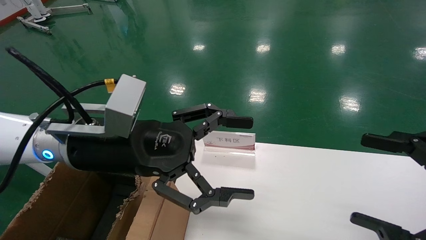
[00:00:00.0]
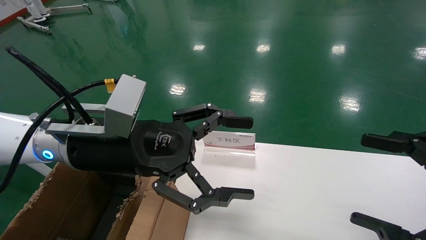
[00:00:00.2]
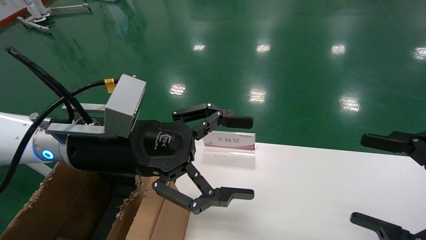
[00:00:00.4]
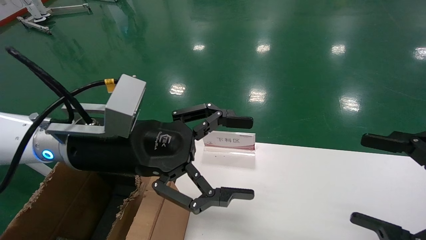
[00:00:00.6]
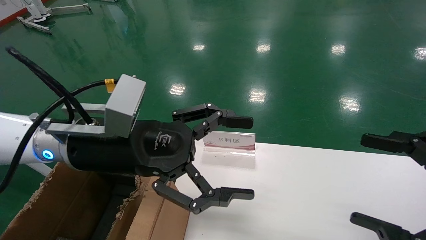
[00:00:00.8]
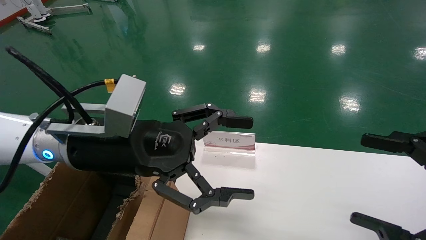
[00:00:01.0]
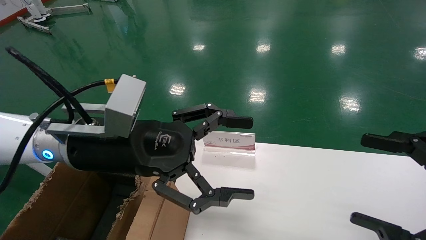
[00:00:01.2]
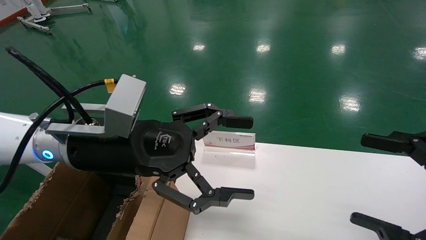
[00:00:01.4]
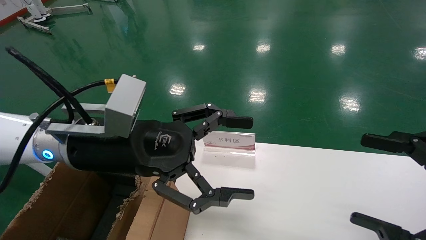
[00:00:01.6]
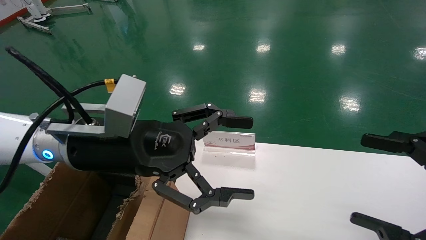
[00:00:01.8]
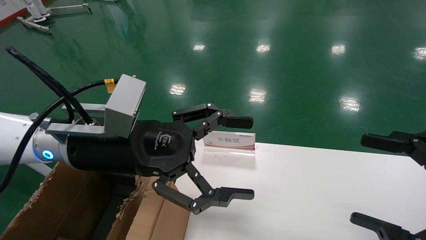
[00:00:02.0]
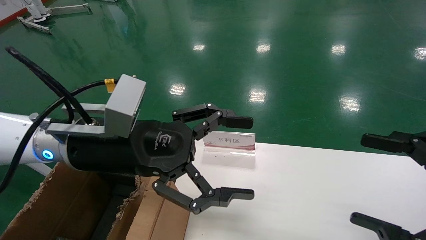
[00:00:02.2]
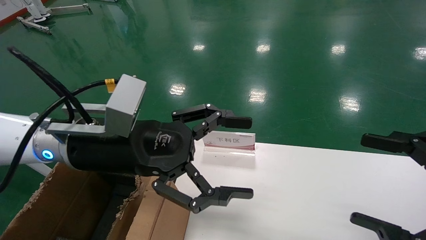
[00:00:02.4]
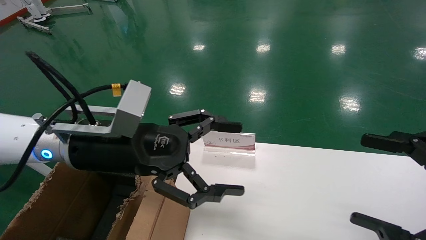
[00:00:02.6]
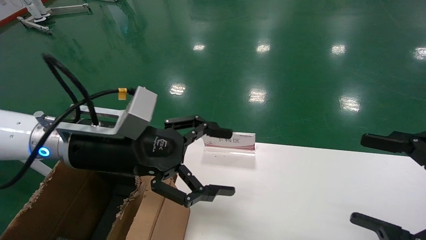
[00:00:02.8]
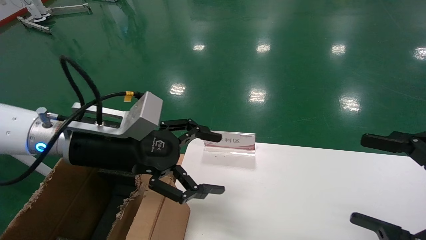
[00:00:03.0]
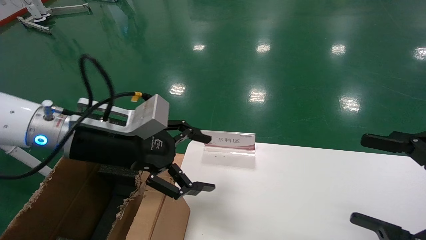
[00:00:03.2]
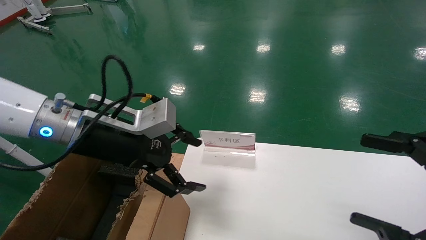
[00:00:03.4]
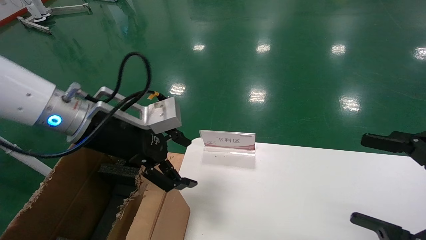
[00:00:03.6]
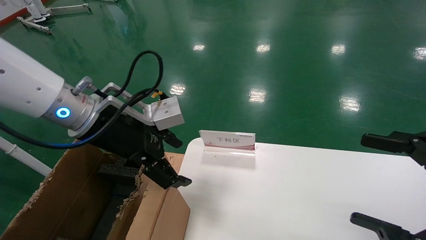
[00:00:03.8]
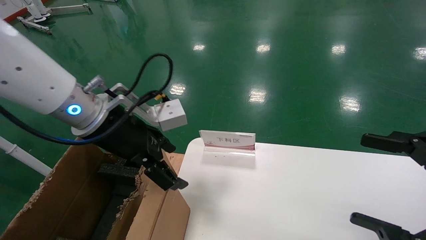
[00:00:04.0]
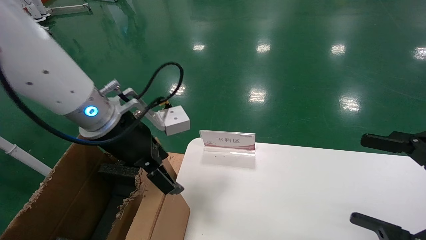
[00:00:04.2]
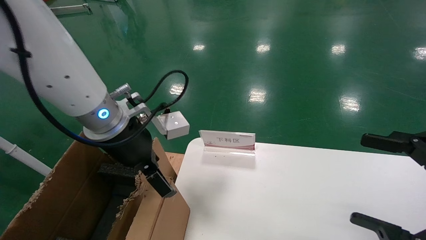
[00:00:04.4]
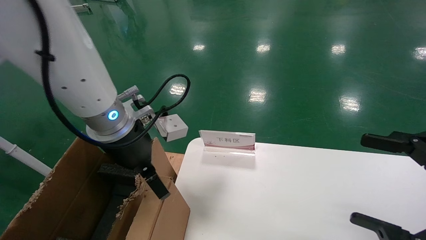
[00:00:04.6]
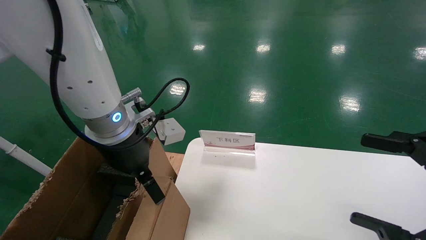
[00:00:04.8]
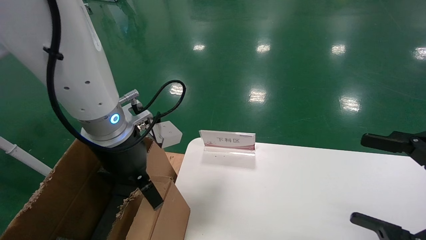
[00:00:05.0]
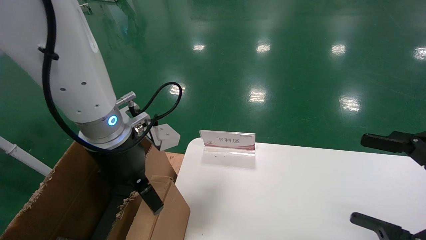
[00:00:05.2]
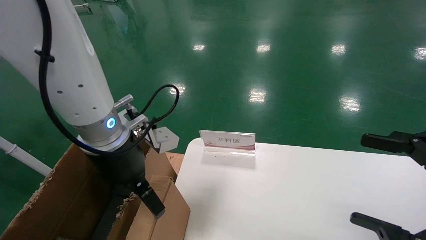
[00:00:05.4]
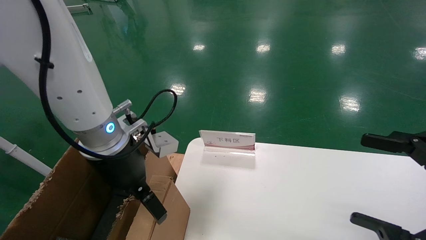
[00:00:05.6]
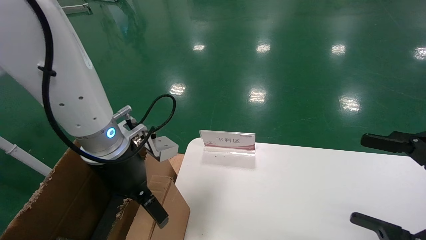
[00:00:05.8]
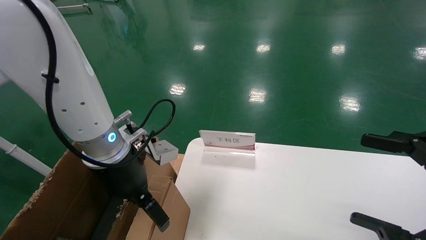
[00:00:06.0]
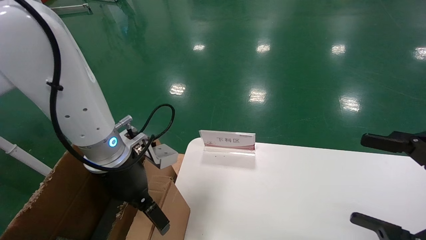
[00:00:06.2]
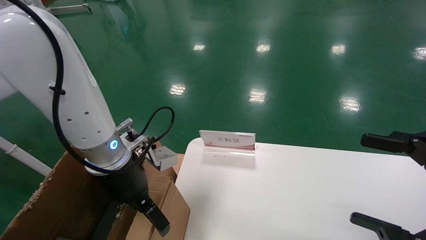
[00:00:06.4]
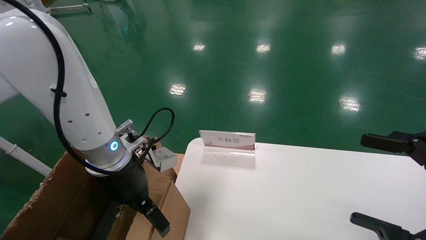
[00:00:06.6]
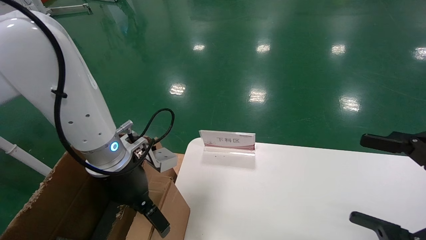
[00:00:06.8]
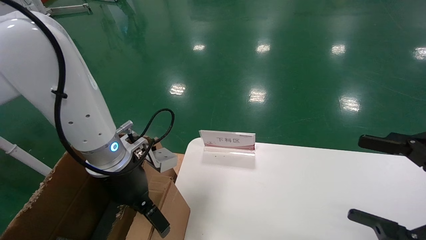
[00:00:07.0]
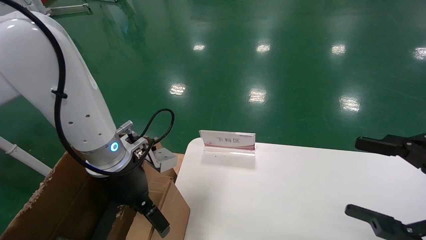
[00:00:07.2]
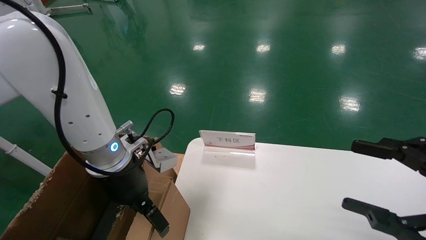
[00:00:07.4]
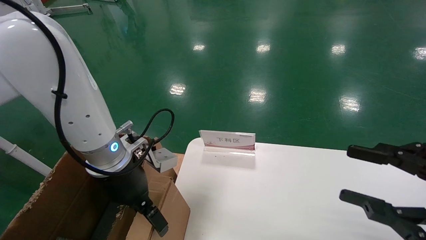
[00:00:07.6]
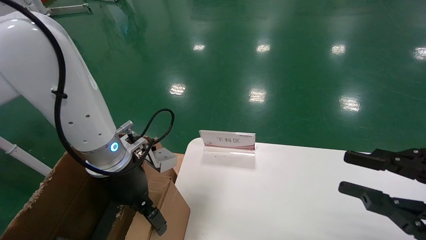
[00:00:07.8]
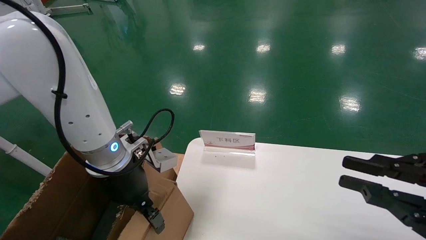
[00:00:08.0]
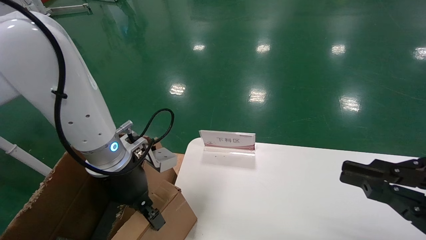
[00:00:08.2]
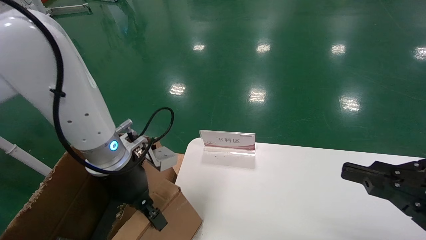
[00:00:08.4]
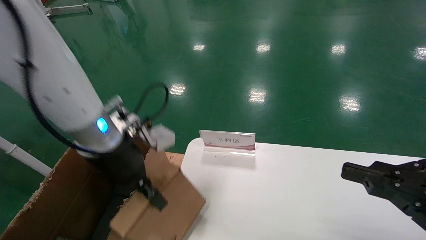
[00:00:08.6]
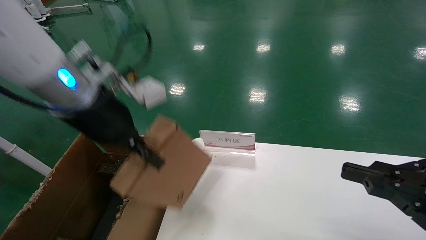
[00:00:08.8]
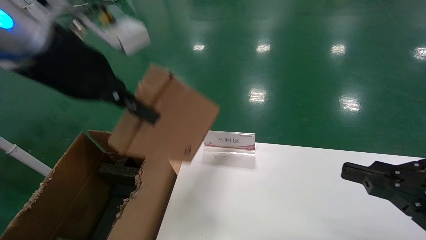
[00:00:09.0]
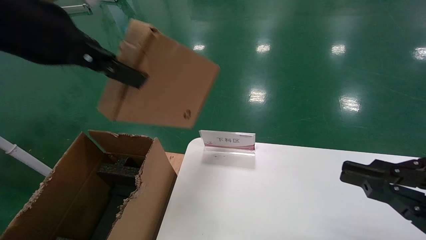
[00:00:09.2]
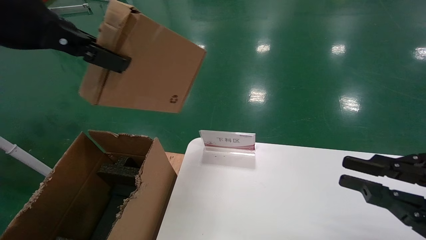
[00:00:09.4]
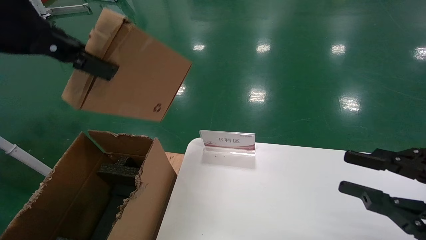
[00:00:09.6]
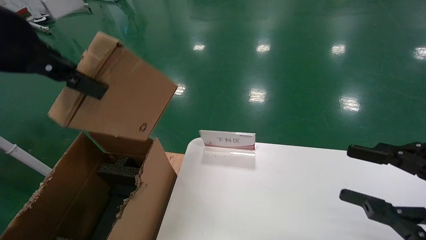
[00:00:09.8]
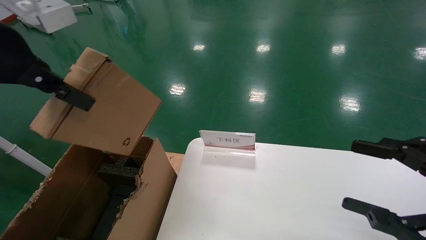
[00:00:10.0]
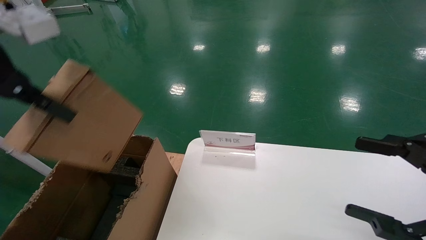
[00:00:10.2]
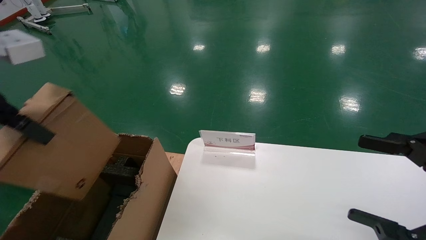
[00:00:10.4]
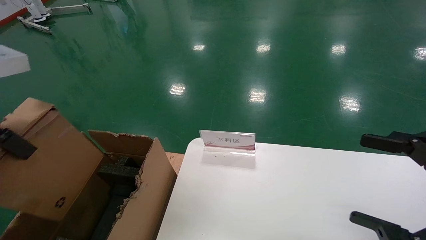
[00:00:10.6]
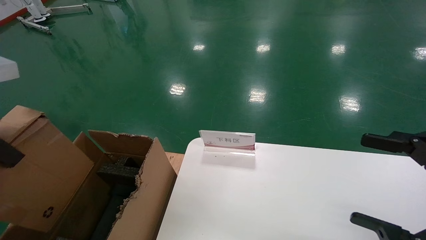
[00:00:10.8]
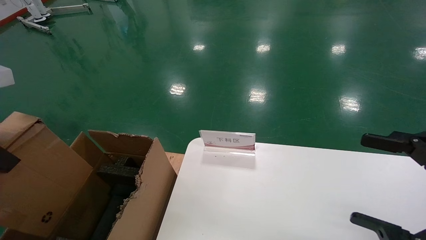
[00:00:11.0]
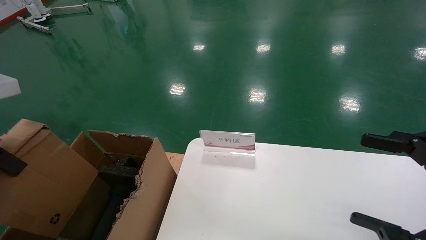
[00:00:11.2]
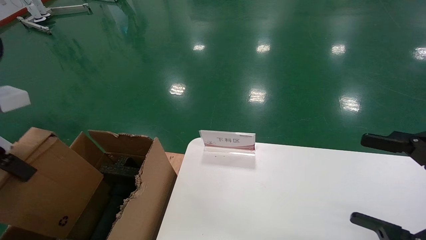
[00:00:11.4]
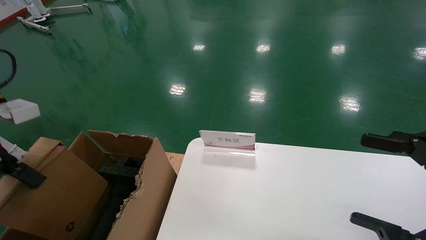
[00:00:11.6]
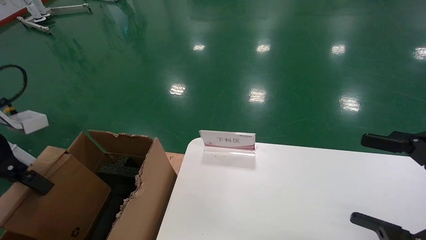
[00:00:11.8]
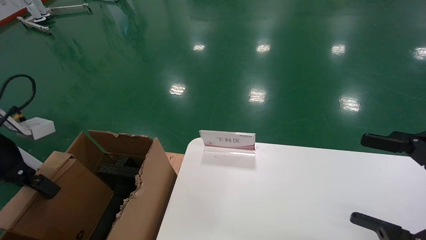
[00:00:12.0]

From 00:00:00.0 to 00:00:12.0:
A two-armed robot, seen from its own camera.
Task of the whole recording: pick up the small cardboard box and load it into the large cardboard box.
Step, from 00:00:00.0 to 00:00:08.0: Grasp the paper box.
From 00:00:00.0 to 00:00:01.6: The two grippers keep their place.
From 00:00:03.0 to 00:00:04.4: The left gripper shifts by about 5 cm.
From 00:00:06.0 to 00:00:07.6: The grippers make only small movements.
From 00:00:07.6 to 00:00:09.0: The left gripper moves upward, roughly 20 cm, and closes, while the right gripper closes up.
From 00:00:09.0 to 00:00:10.4: The right gripper opens its fingers. The left gripper shifts some 10 cm backward and to the left.
From 00:00:10.4 to 00:00:12.0: The left gripper goes approximately 20 cm downward and to the left.

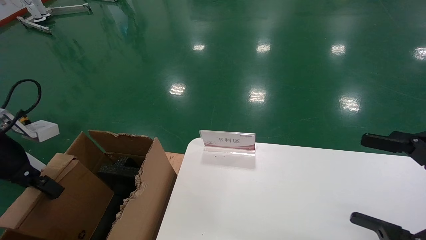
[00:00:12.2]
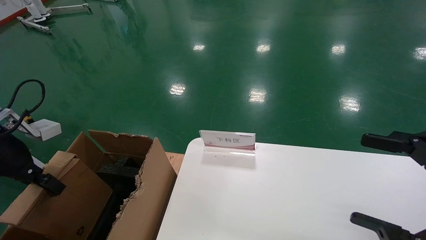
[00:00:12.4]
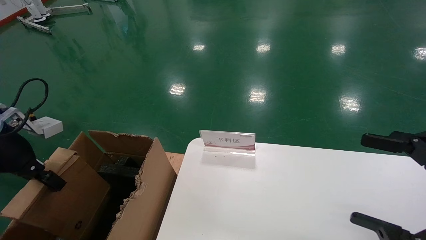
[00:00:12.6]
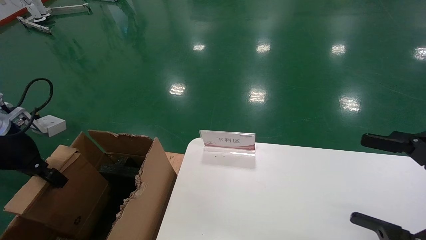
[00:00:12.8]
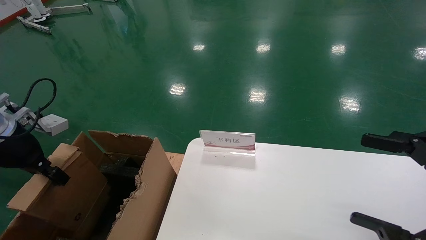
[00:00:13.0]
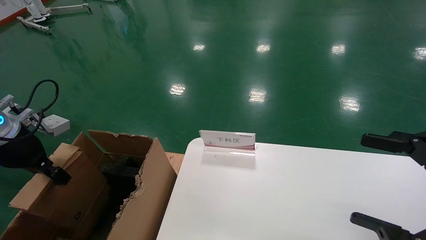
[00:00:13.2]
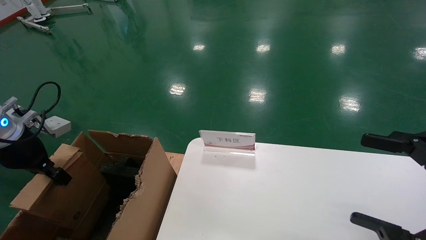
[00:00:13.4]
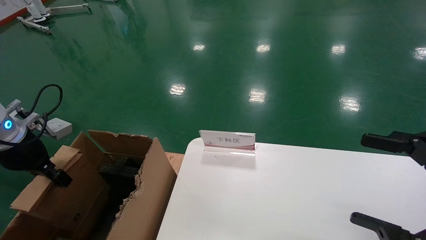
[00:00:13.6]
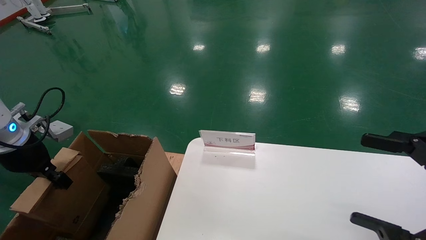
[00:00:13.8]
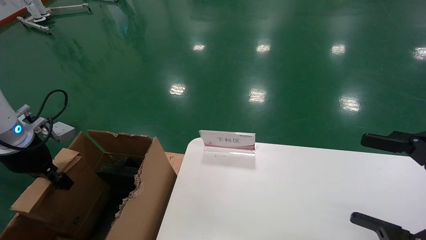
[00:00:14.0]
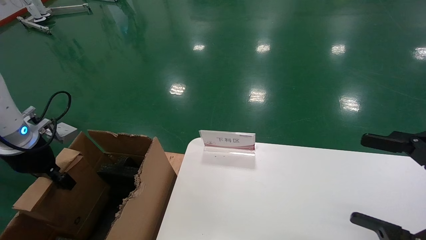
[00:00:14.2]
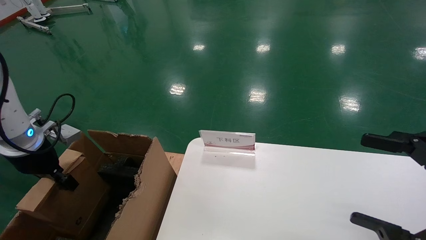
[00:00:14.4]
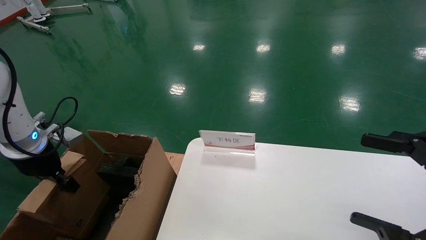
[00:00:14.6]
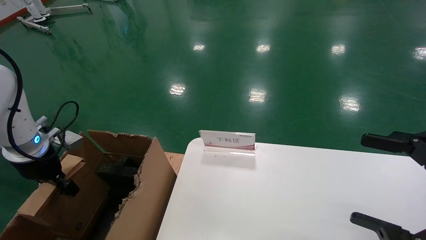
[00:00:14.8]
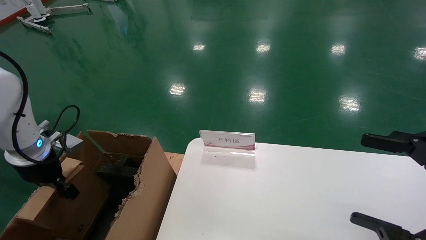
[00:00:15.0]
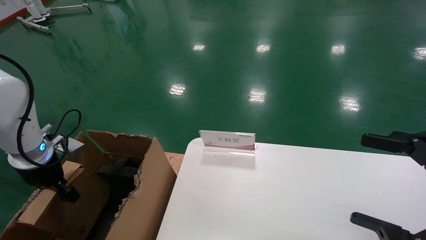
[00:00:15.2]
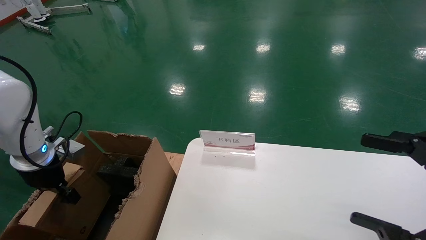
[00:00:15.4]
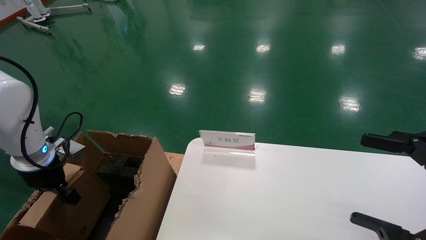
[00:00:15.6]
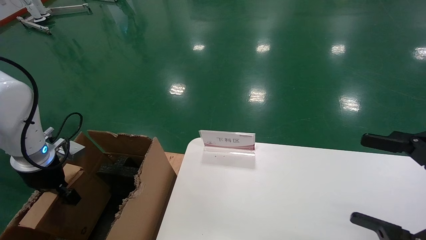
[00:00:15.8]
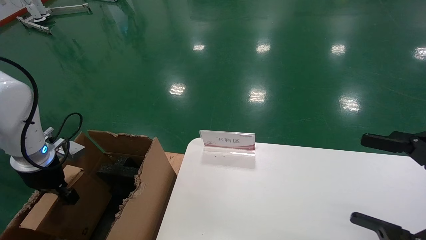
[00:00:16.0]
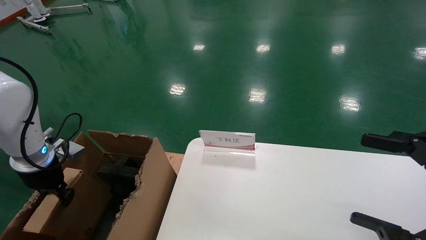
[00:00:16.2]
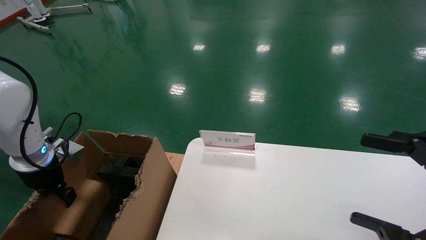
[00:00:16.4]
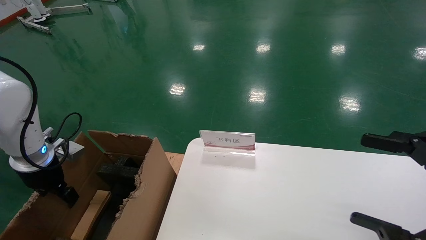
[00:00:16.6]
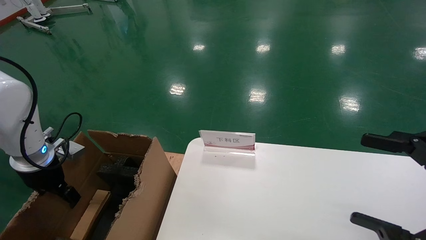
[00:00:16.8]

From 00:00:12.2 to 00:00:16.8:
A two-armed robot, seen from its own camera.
Task of the whole recording: pick up the small cardboard box and load it into the large cardboard box.
Step, from 00:00:12.2 to 00:00:16.4: Place the paper box in the another big box.
From 00:00:12.2 to 00:00:13.8: The left gripper moves forward, some 5 cm.
From 00:00:13.8 to 00:00:15.2: The left gripper goes some 5 cm downward.
From 00:00:15.2 to 00:00:16.8: The left gripper opens its fingers.
